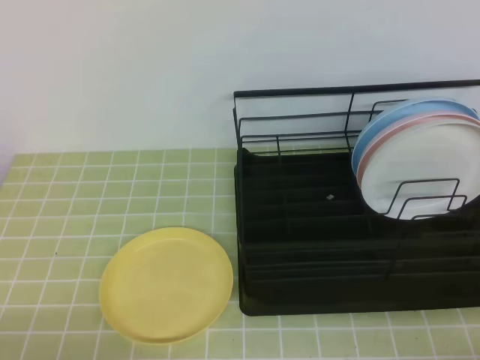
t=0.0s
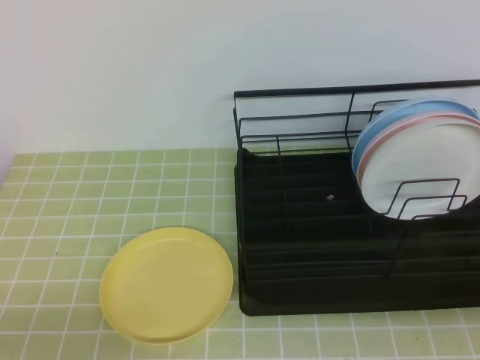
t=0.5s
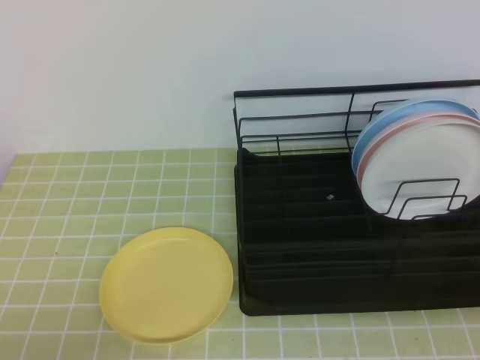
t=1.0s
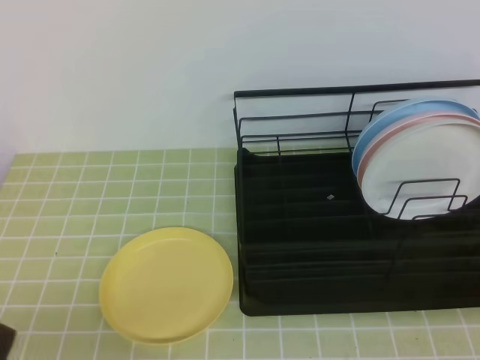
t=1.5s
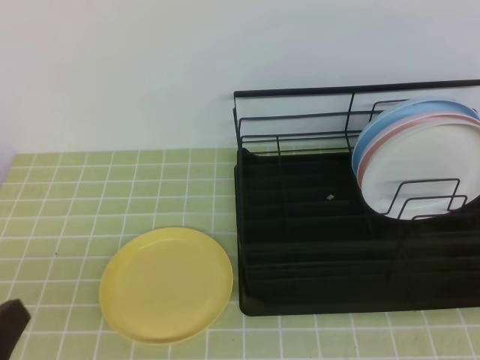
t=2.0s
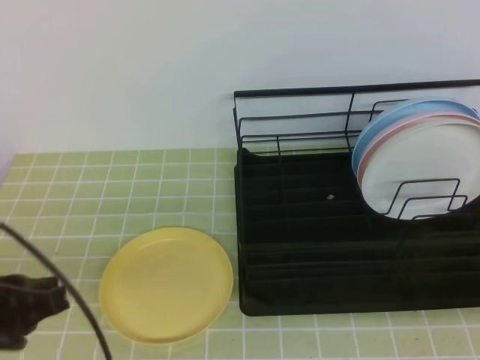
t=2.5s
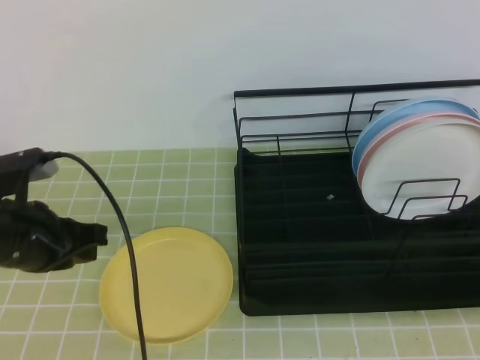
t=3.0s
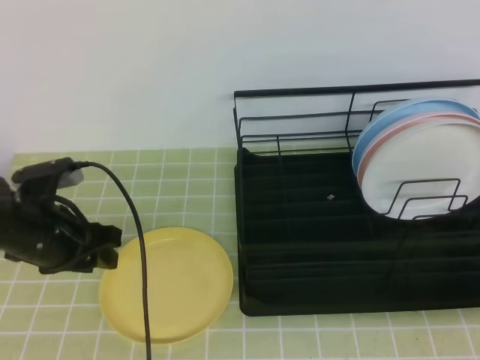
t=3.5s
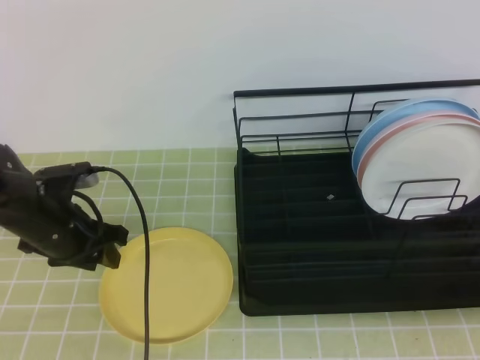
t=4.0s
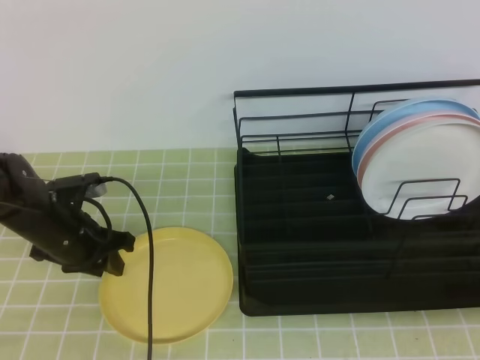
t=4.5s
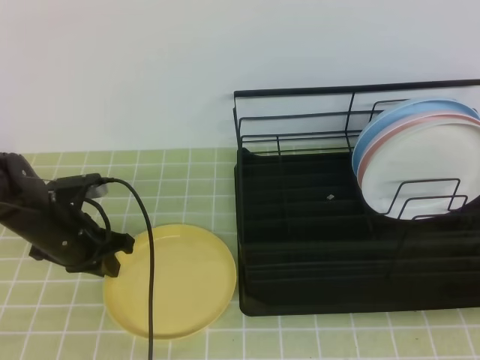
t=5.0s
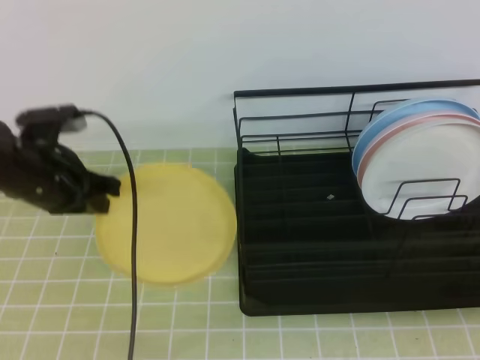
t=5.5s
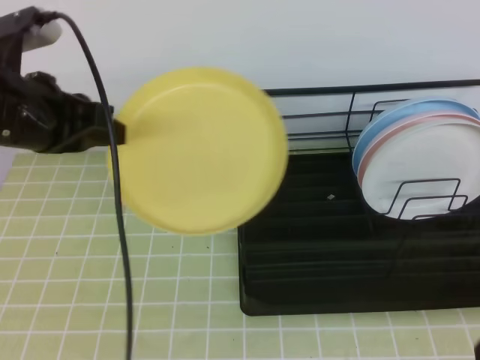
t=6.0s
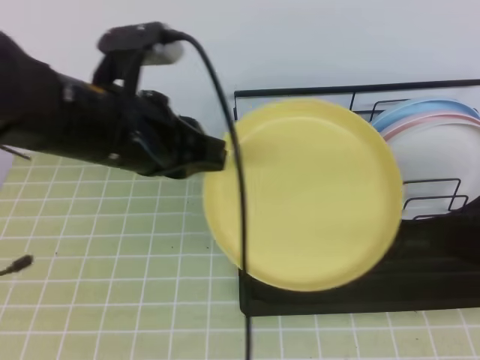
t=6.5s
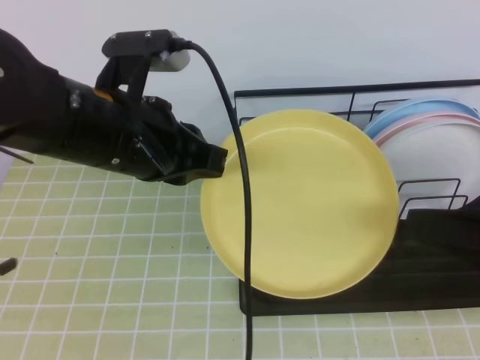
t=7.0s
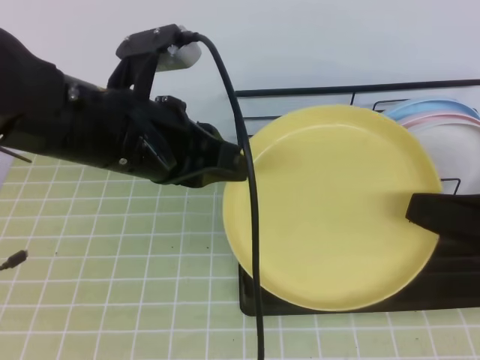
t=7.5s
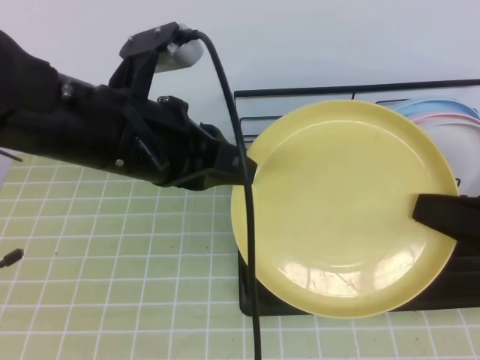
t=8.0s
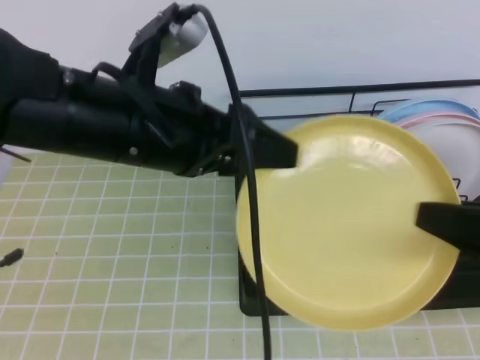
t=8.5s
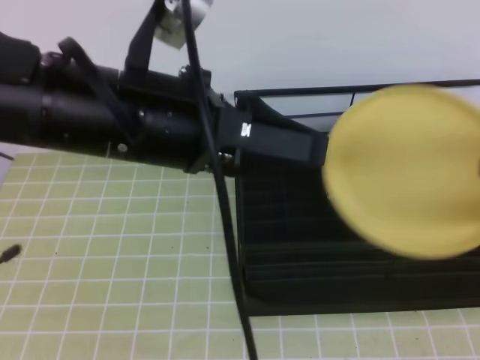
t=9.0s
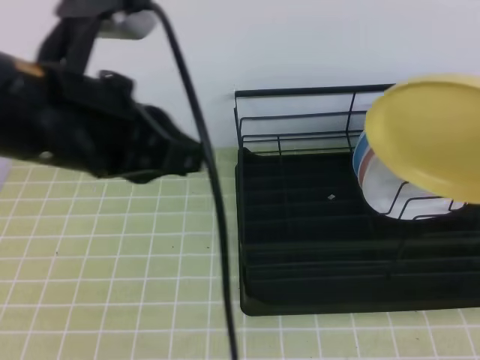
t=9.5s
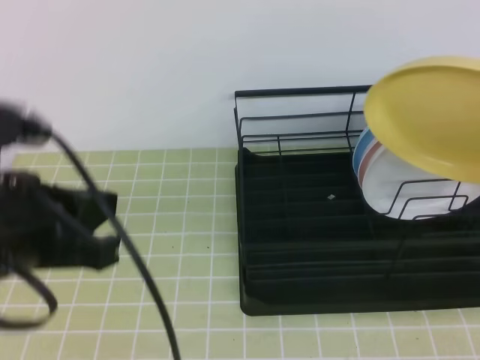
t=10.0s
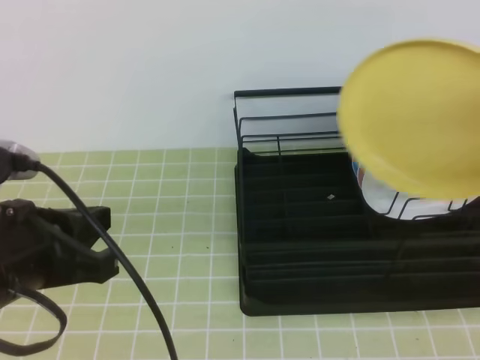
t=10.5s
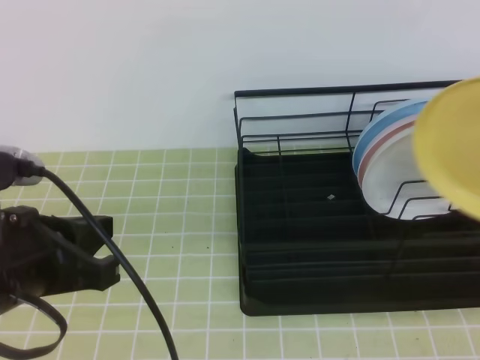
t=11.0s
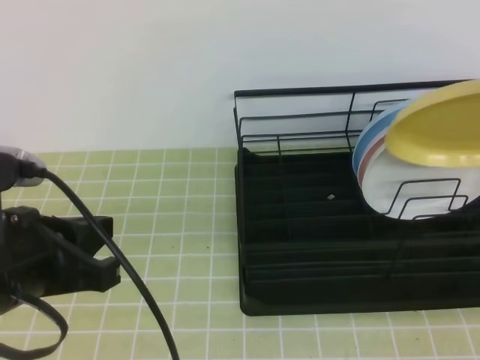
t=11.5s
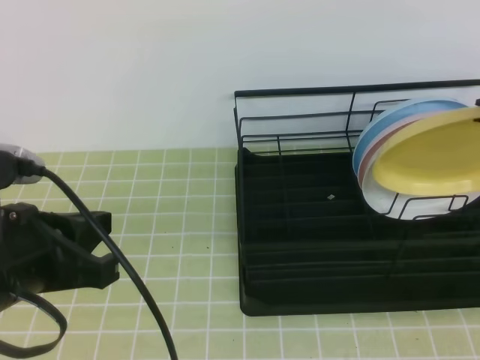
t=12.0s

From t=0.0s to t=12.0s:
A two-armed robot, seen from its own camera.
Step, from t=0.0s to t=4.0s: Left grab the yellow plate.
Step, from t=4.5s to t=6.5s: Right receive the plate.
Step, from t=7.0s to t=10.5s: Right place it at the front of the shelf.
From t=0.0s to t=2.0s: The left gripper heads upward, covering about 10 cm.
From t=2.0s to t=4.0s: The left gripper travels forward by approximately 25 cm, and opens up.
From t=4.0s to t=6.0s: The left gripper heads upward, covering approximately 15 cm, and closes up.
From t=6.0s to t=8.0s: The right gripper goes approximately 10 cm forward, and opens. Meanwhile the left gripper moves to the right, some 10 cm.
From t=8.0s to t=10.0s: The left gripper moves backward and to the left, about 10 cm, and opens, then closes again. Meanwhile the right gripper moves about 10 cm.
From t=10.0s to t=12.0s: The right gripper shifts approximately 5 cm forward.

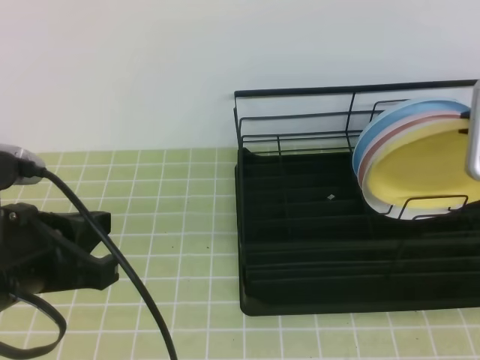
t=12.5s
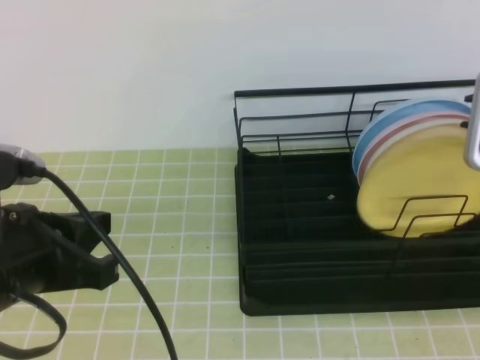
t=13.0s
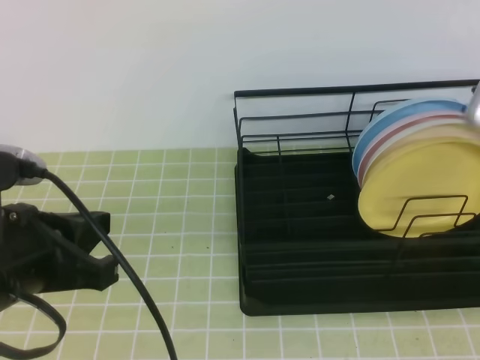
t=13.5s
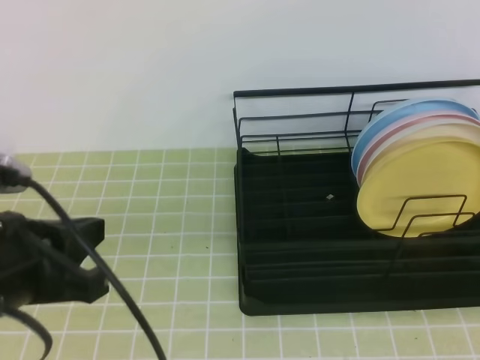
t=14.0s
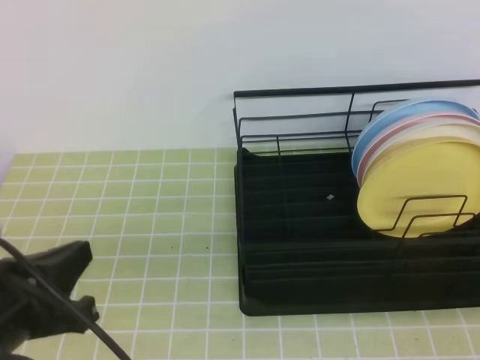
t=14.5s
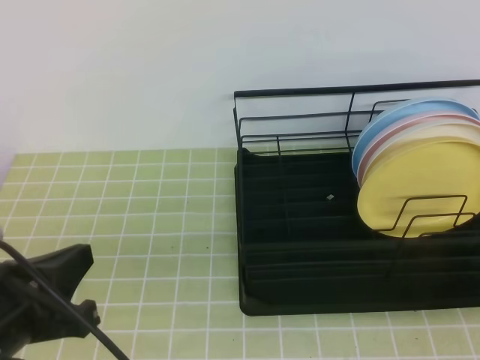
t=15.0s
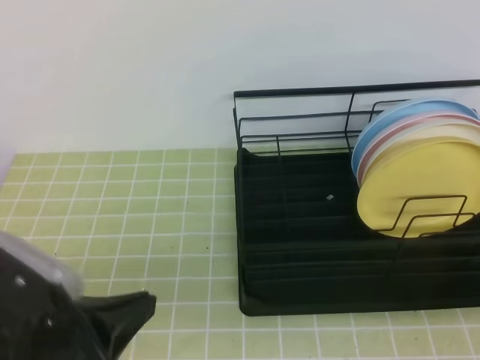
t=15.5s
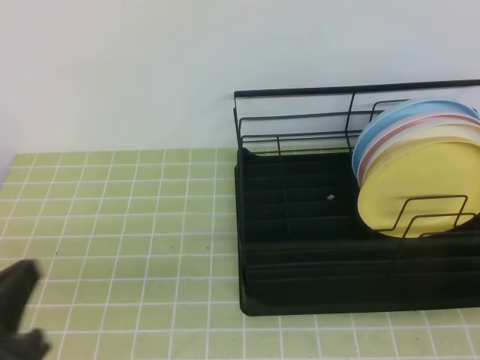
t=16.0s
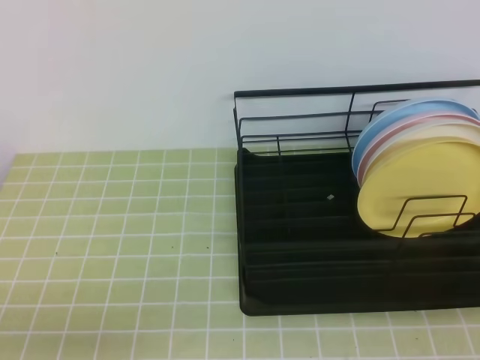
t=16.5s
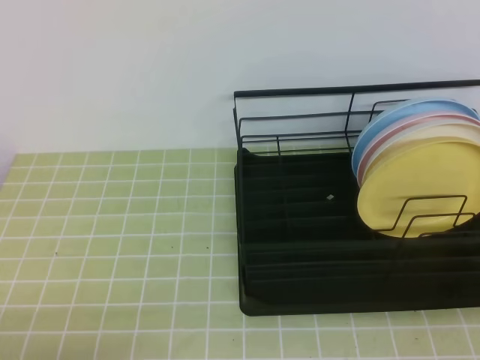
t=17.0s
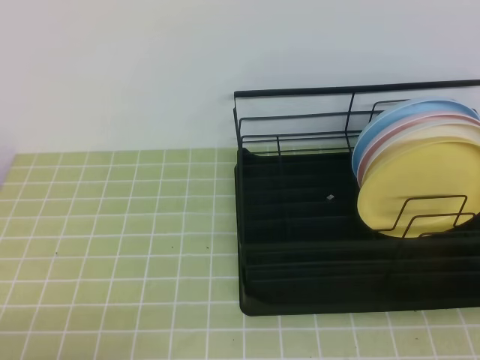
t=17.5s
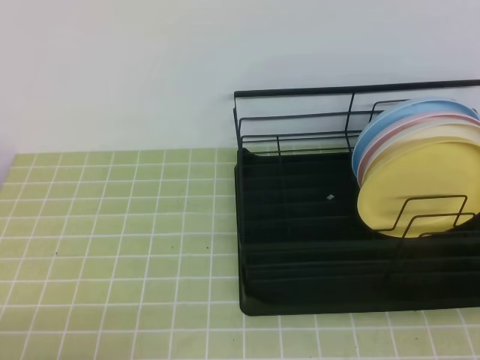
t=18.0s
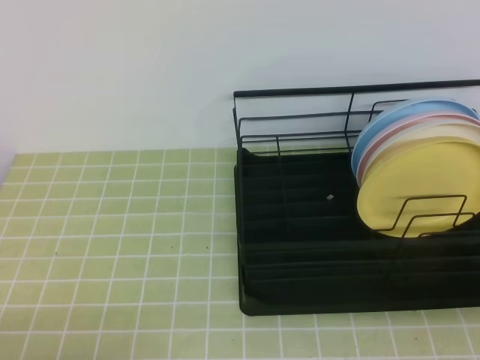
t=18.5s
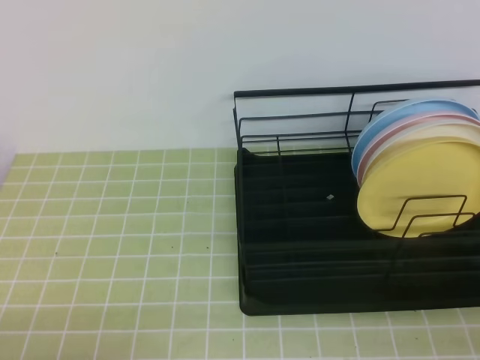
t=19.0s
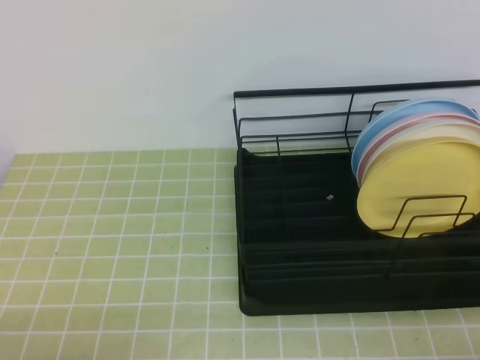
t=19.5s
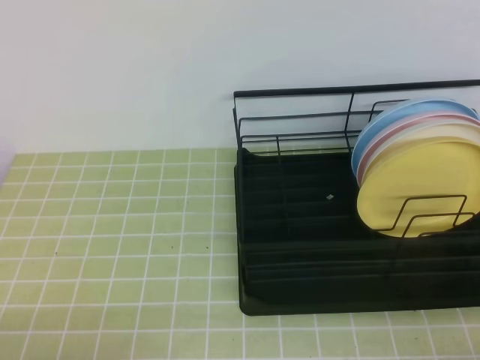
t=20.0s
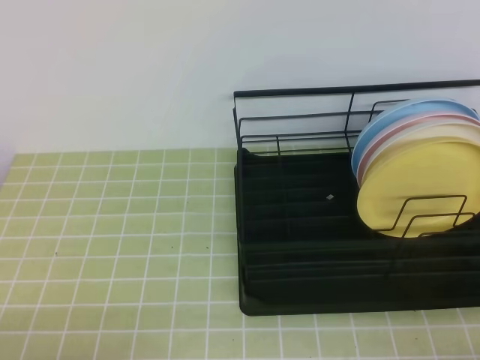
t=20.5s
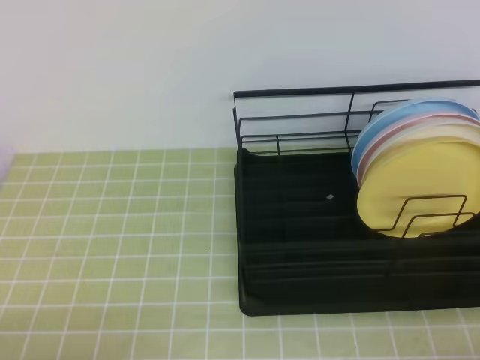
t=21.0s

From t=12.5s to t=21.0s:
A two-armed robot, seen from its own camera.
From t=12.5s to t=14.5s: The right gripper moves backward, approximately 25 cm, and opens and closes again.
From t=14.5s to t=16.5s: The left gripper heads downward, backward and to the left, covering approximately 15 cm.
